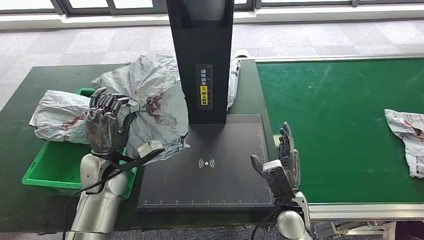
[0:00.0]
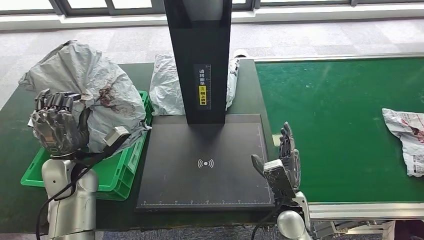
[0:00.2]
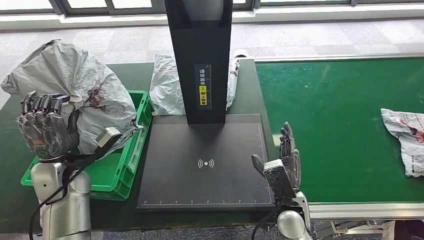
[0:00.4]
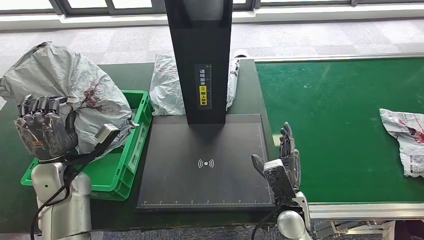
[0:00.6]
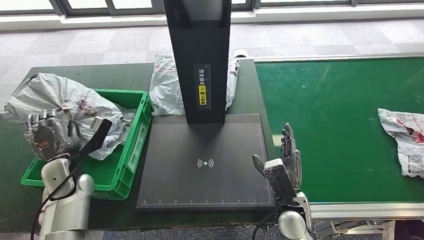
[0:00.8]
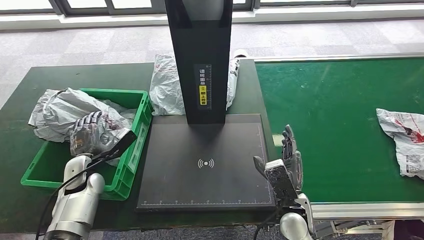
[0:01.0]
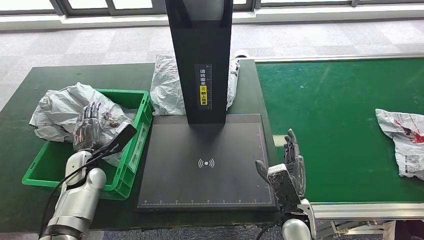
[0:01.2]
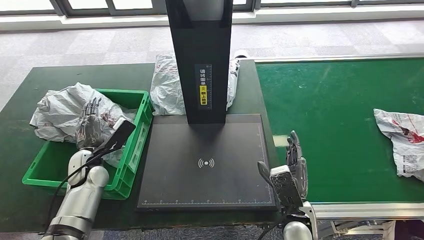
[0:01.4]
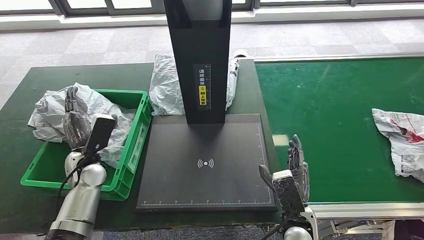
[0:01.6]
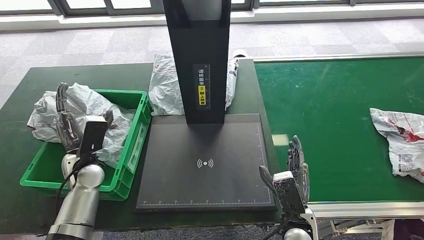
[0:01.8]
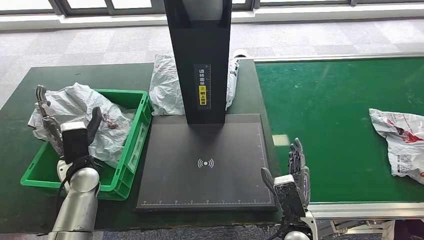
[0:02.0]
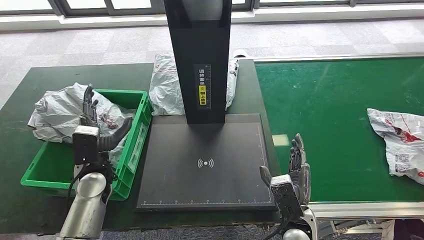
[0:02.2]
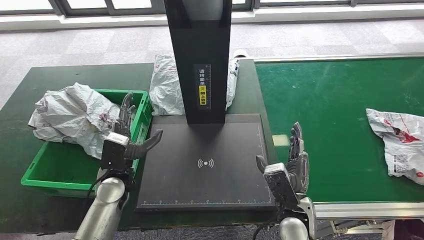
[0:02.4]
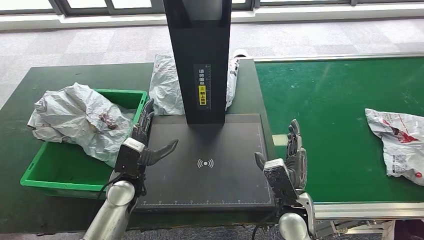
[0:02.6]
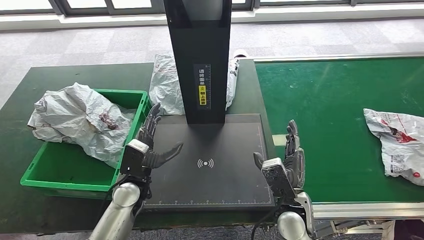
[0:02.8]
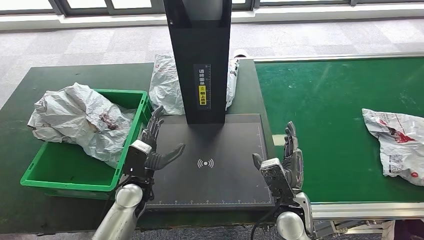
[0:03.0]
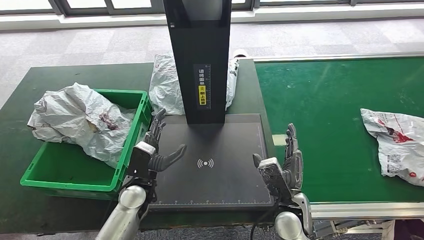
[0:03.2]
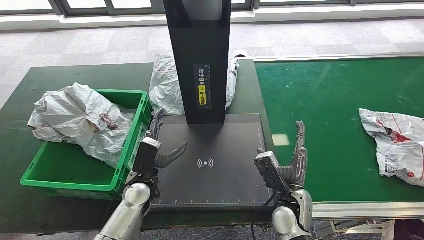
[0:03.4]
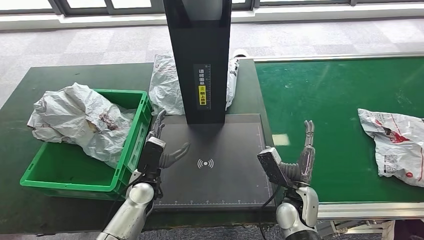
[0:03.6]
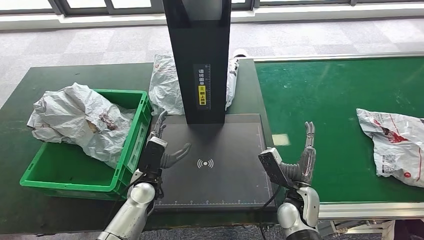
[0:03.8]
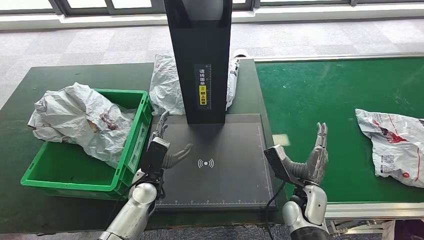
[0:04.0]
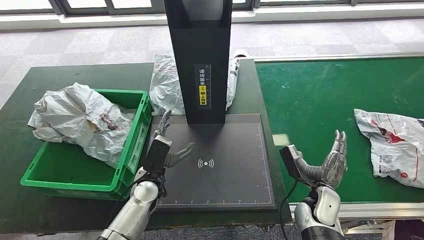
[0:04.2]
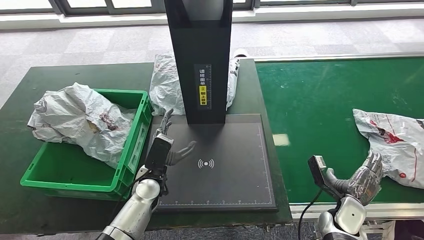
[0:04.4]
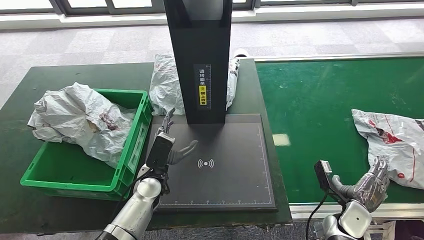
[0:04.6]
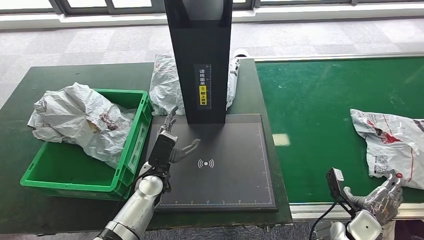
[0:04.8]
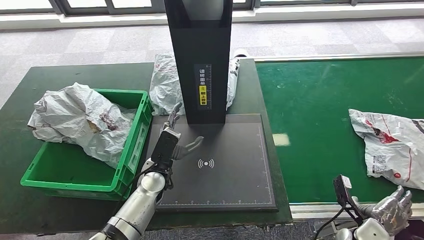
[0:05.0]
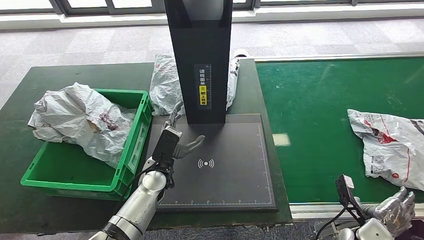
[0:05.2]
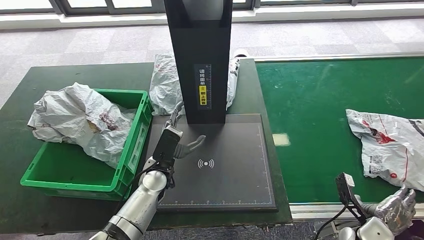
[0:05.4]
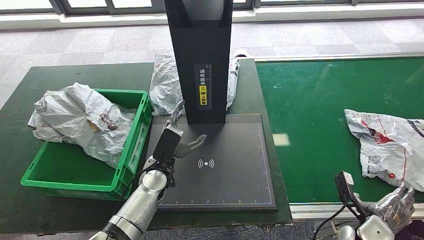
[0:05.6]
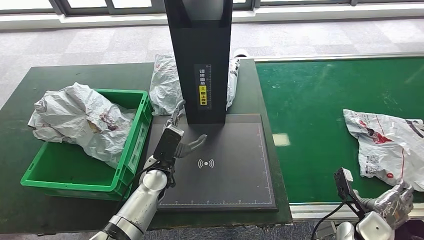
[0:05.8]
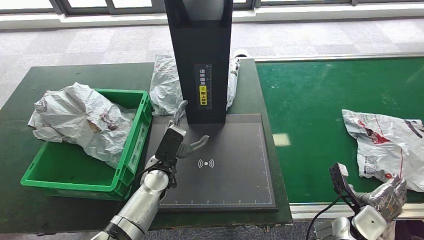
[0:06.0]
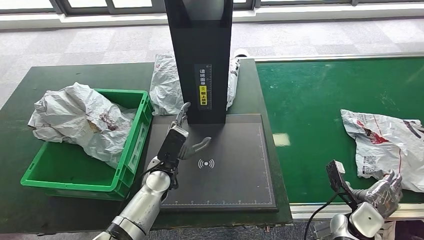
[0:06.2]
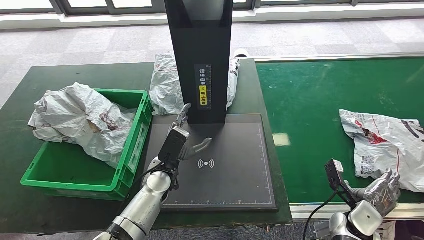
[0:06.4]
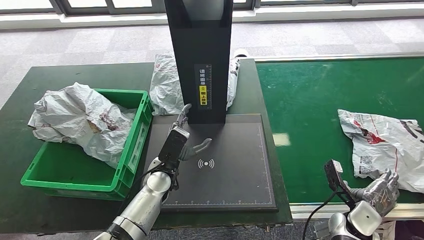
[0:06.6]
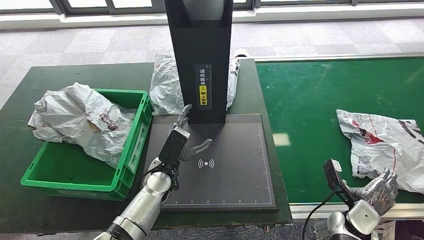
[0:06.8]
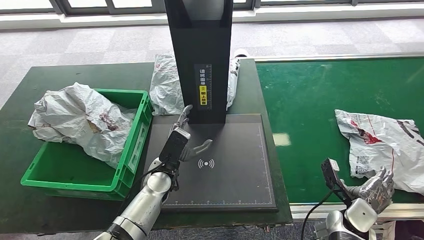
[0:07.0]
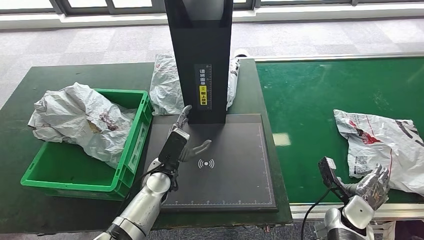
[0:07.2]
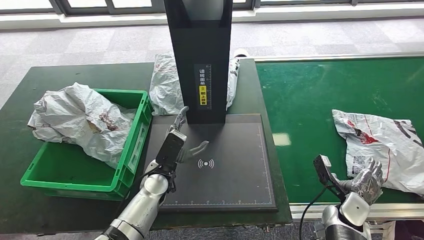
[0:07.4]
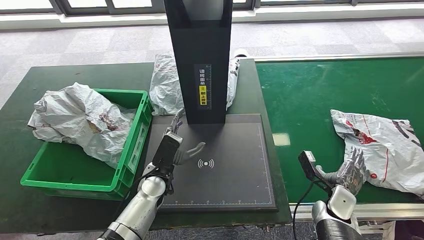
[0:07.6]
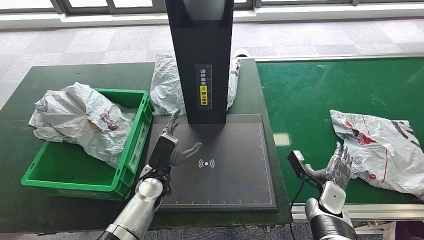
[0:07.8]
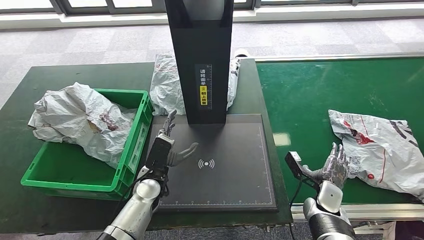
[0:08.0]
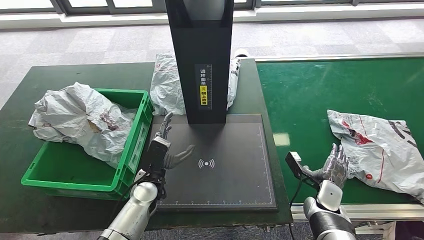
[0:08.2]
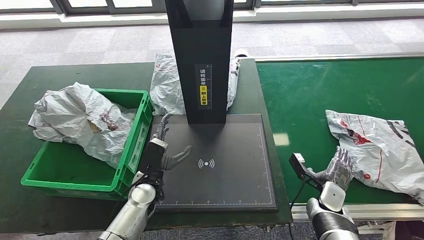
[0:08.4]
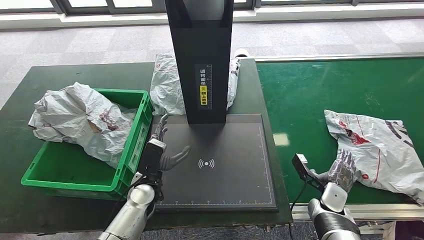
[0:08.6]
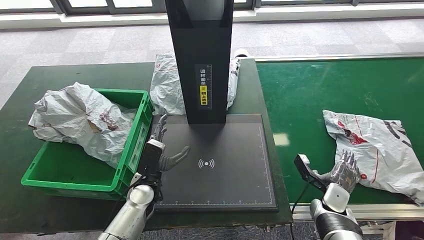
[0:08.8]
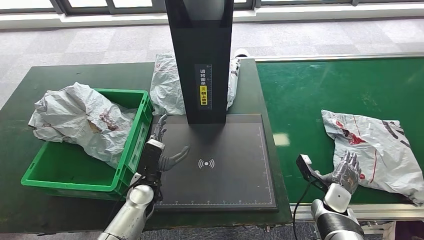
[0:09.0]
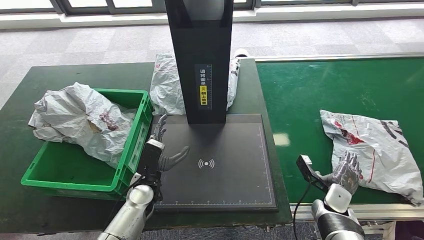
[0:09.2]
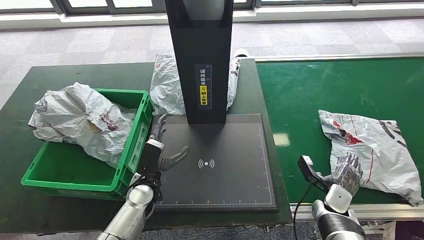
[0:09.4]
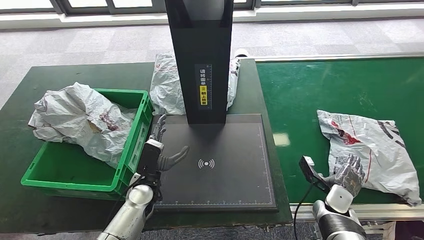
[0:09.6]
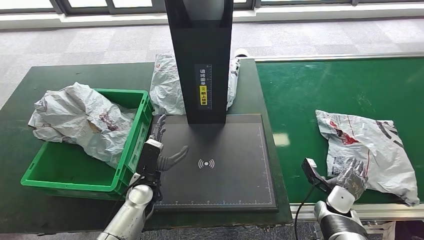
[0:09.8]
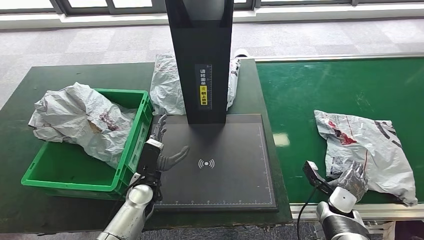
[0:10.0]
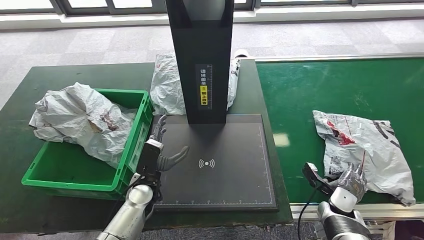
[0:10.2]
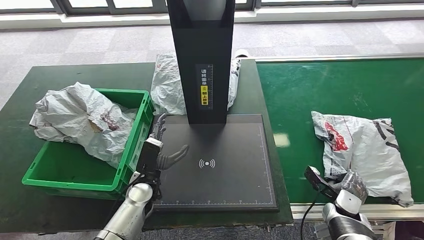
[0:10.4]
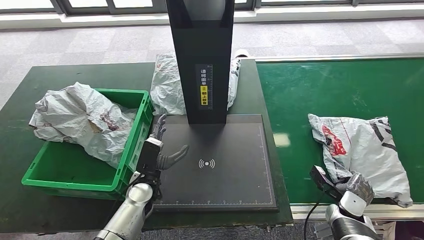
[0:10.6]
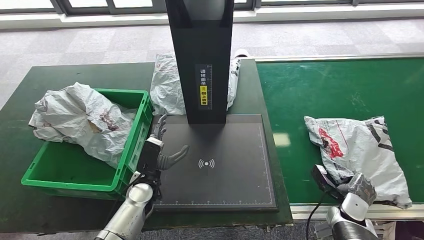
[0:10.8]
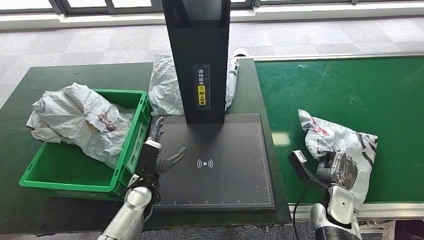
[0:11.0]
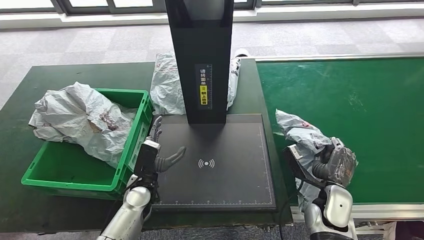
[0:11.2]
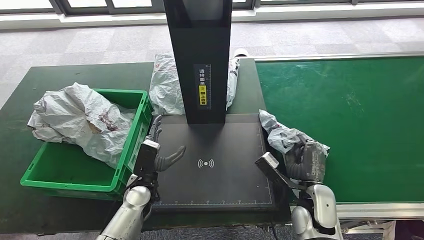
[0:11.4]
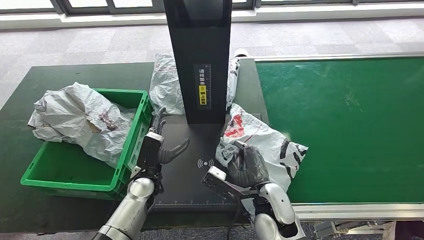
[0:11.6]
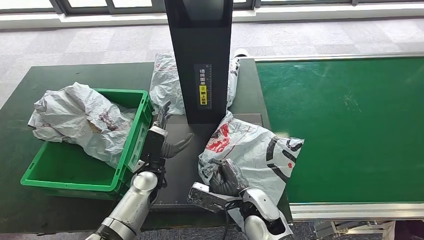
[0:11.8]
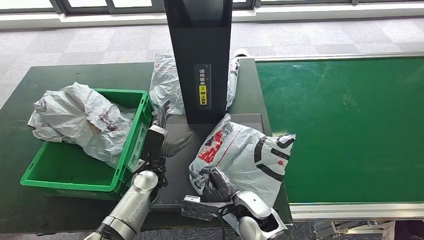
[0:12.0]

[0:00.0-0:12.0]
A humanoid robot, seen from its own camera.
Step, 0:00.8 to 0:02.6: Place the parcel into the delivery box.
Step, 0:08.0 to 0:11.4: Pick up the parcel from the conveyor belt.
0:01.6 to 0:03.0: The left hand travels to the right by roughly 15 cm.
0:03.0 to 0:04.4: The right hand goes roughly 15 cm to the right and downward.
0:06.0 to 0:07.6: The right hand changes place by approximately 5 cm.
0:07.6 to 0:09.0: The hands move only a little.
0:09.0 to 0:10.4: There are only small adjustments of the hands.

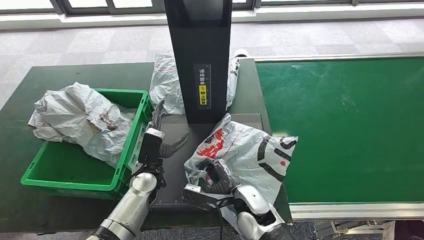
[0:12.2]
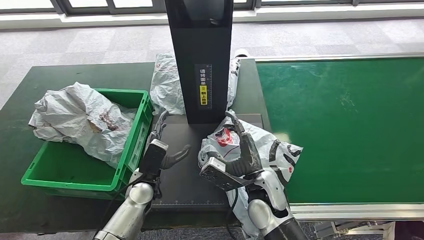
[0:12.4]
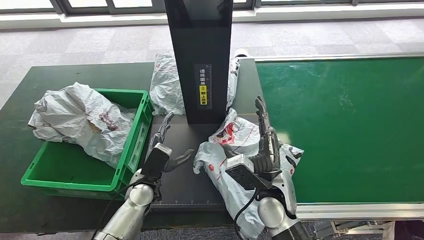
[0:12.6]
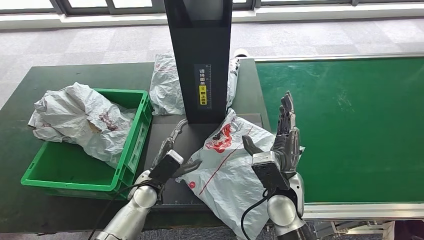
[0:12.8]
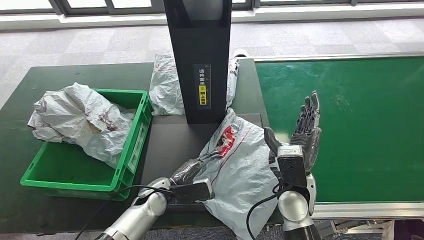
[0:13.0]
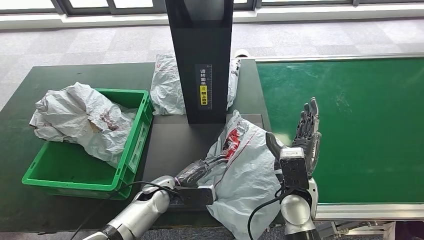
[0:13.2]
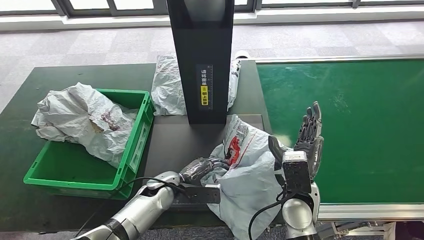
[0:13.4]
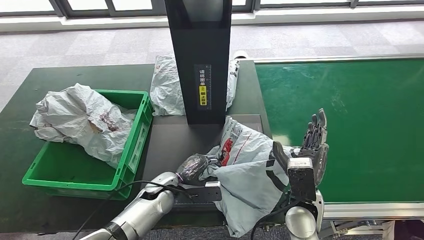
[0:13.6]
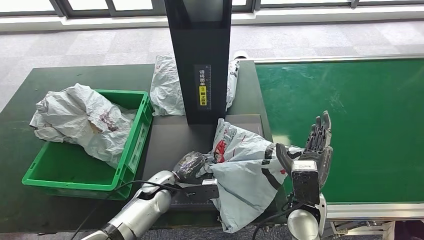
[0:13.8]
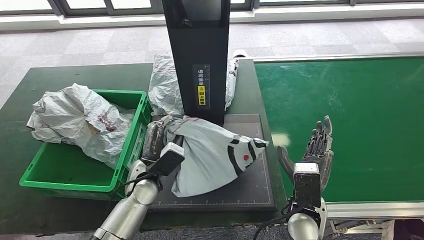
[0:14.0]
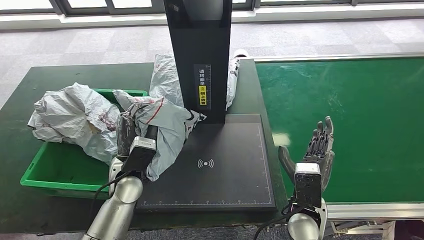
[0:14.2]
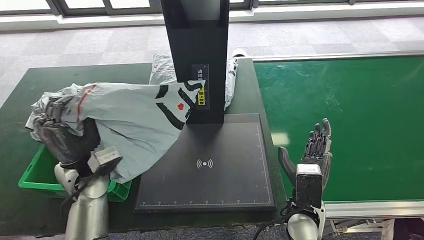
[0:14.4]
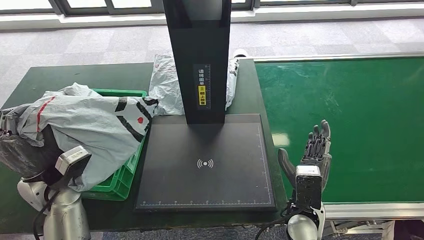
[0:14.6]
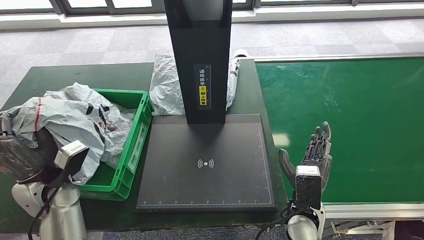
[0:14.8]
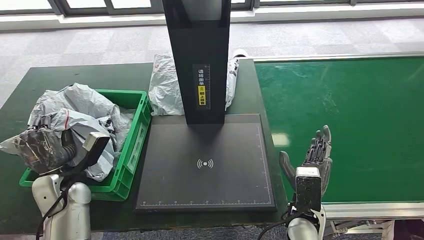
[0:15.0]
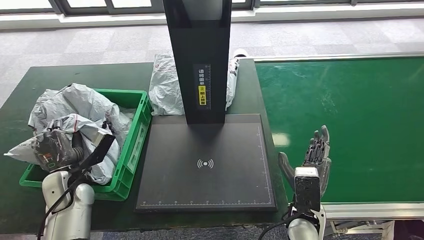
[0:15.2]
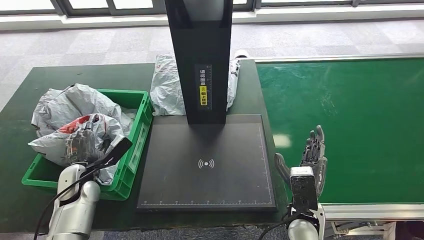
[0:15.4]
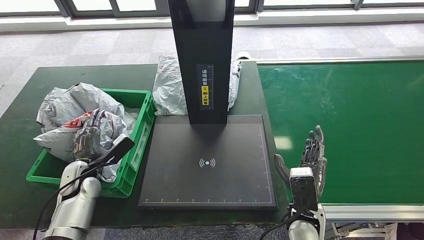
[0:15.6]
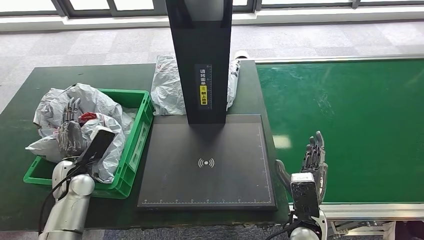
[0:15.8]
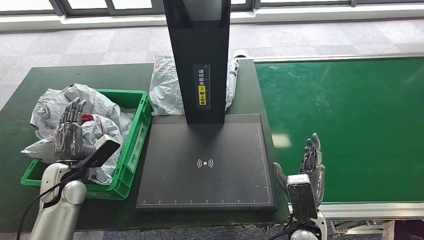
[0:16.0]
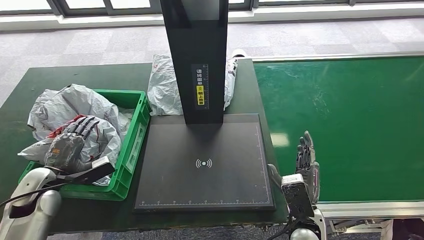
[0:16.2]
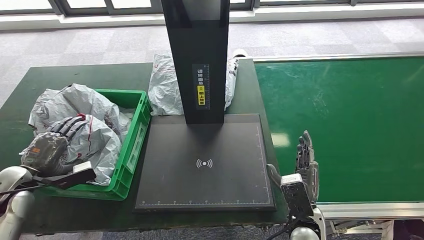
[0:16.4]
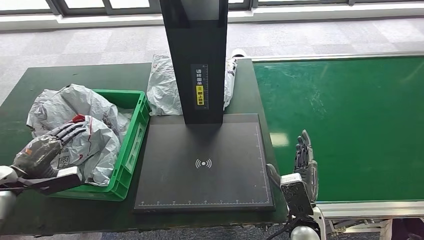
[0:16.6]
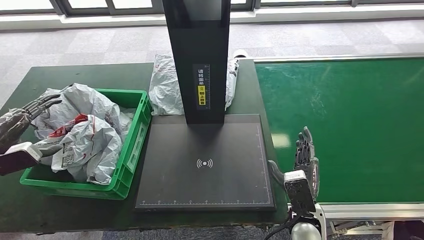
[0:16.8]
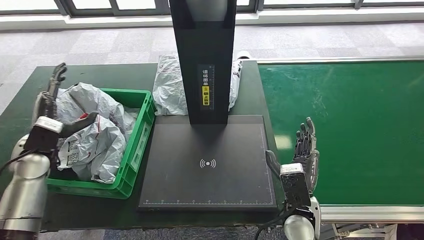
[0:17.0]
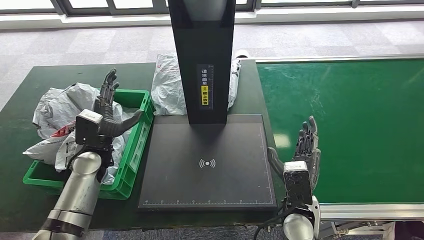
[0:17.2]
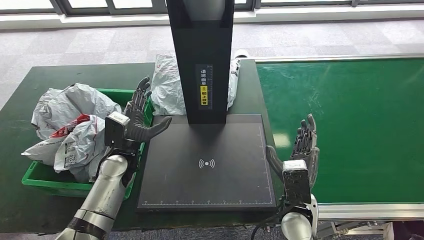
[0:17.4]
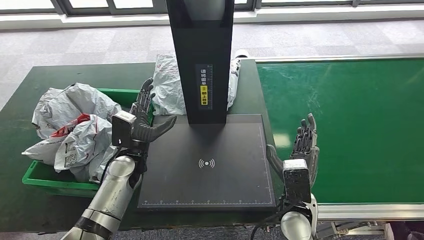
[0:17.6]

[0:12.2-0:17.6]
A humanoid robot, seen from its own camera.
Step, 0:12.2 to 0:13.2: Place the parcel onto the inbound machine.
Step, 0:13.4 to 0:14.6: Pick up the parcel from the inbound machine.
Step, 0:15.0 to 0:16.4: Place the parcel into the delivery box.
0:15.0 to 0:16.2: The left hand heads to the left, covering approximately 5 cm.
